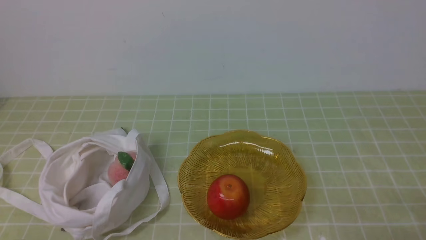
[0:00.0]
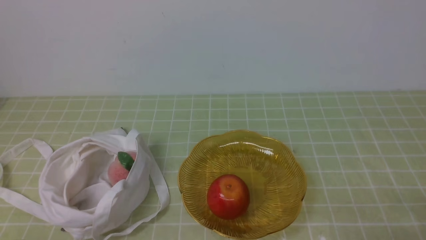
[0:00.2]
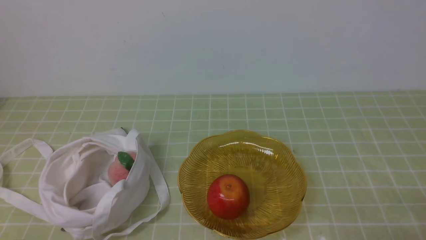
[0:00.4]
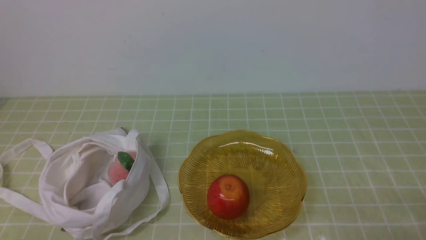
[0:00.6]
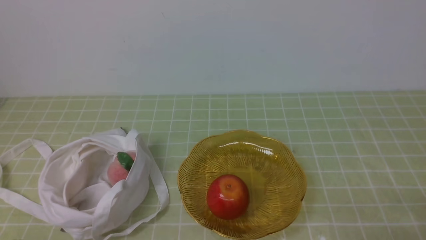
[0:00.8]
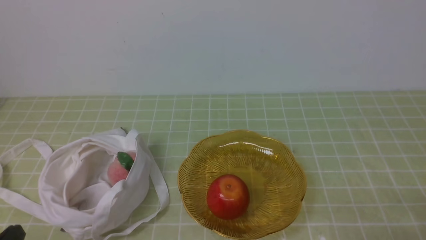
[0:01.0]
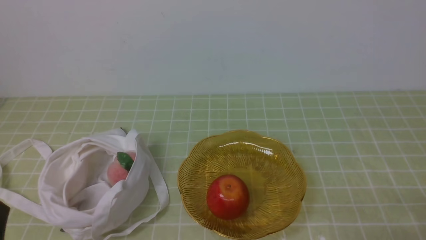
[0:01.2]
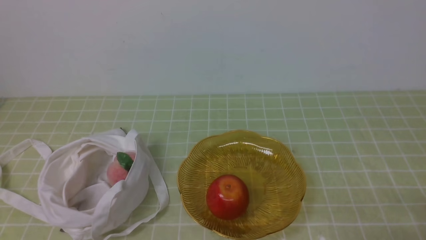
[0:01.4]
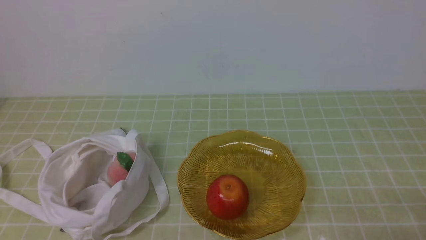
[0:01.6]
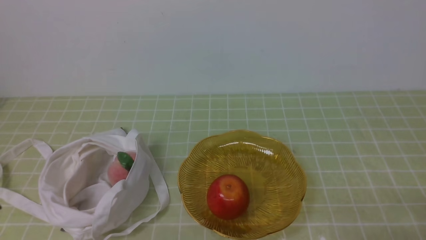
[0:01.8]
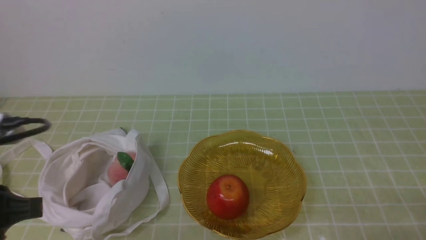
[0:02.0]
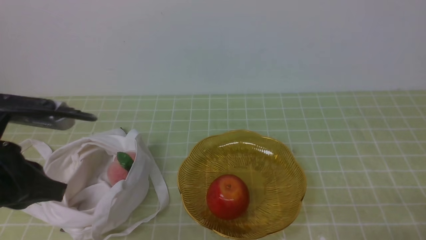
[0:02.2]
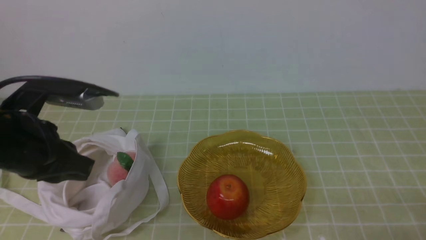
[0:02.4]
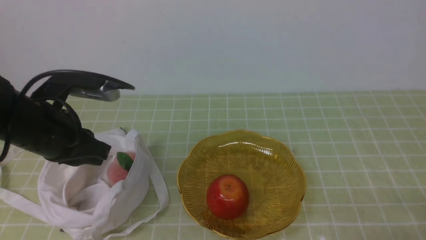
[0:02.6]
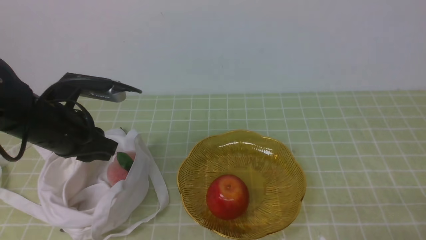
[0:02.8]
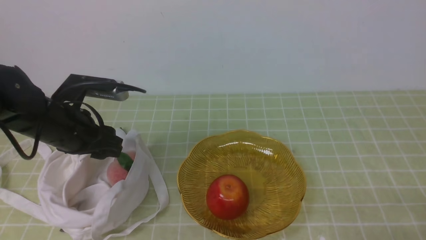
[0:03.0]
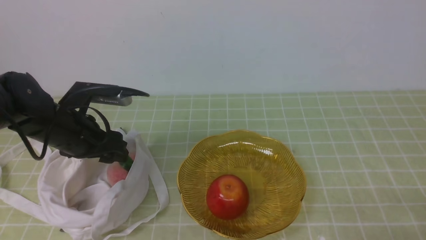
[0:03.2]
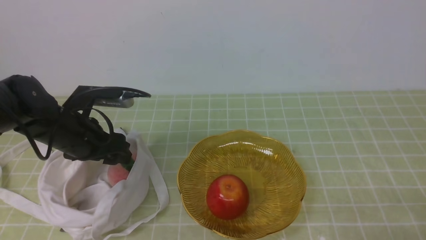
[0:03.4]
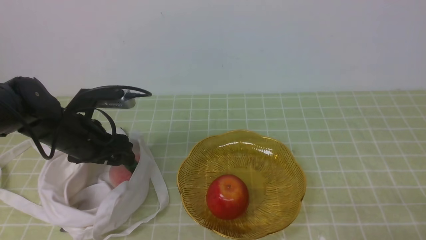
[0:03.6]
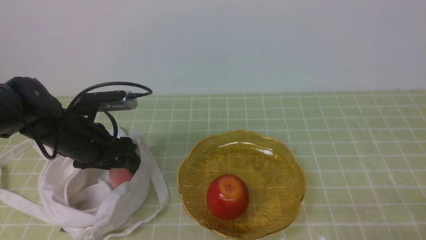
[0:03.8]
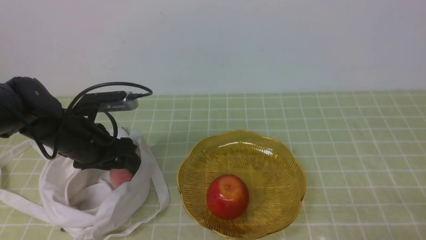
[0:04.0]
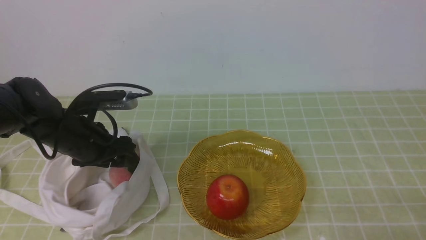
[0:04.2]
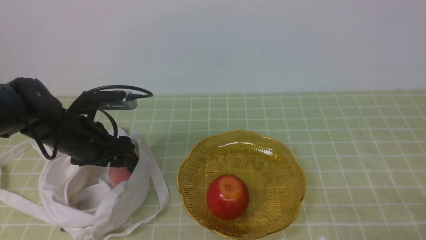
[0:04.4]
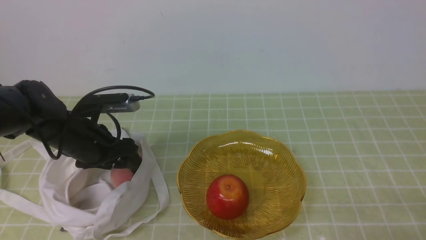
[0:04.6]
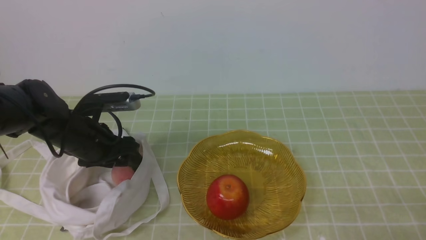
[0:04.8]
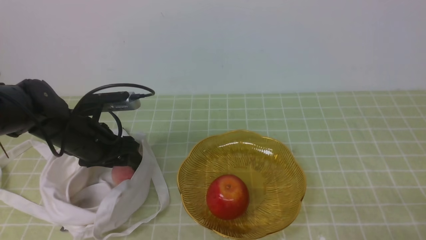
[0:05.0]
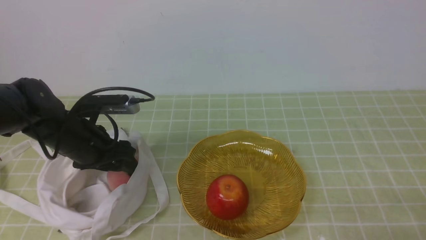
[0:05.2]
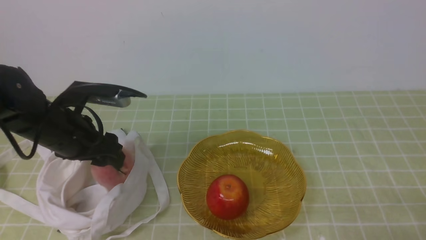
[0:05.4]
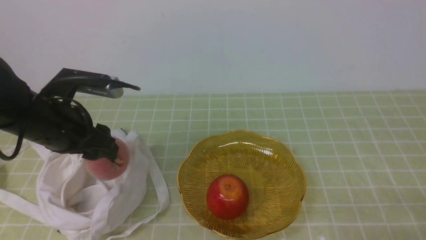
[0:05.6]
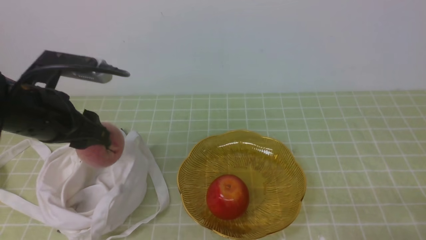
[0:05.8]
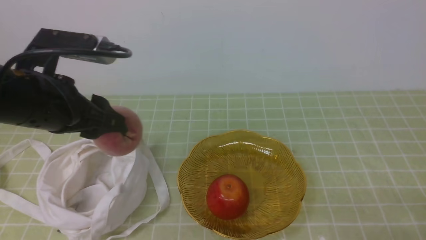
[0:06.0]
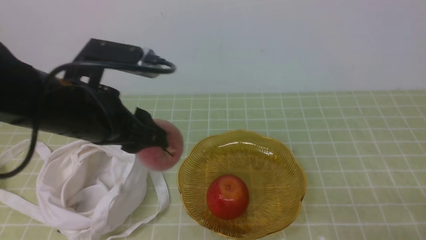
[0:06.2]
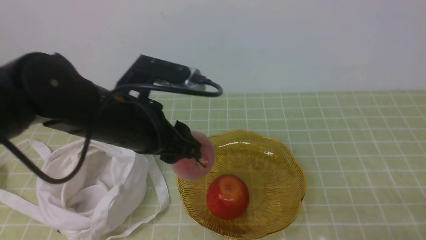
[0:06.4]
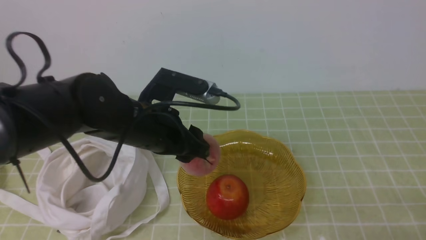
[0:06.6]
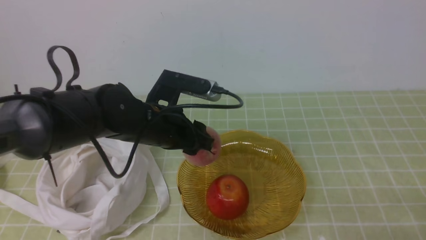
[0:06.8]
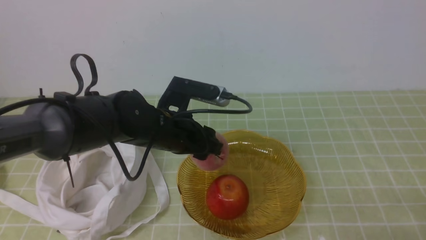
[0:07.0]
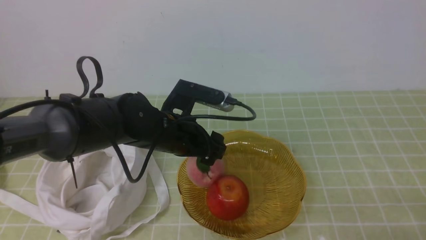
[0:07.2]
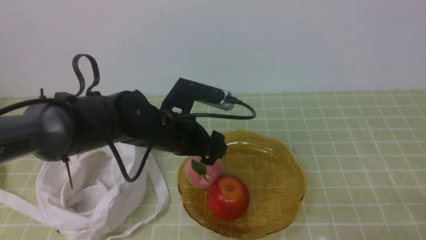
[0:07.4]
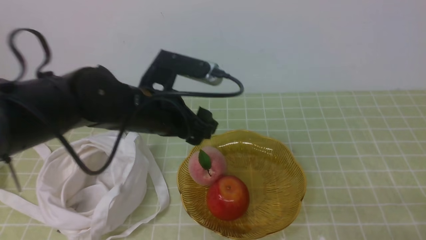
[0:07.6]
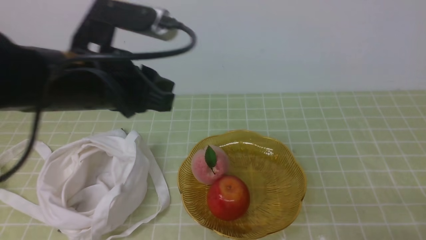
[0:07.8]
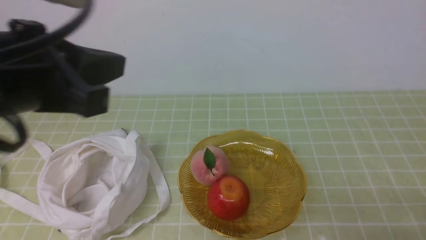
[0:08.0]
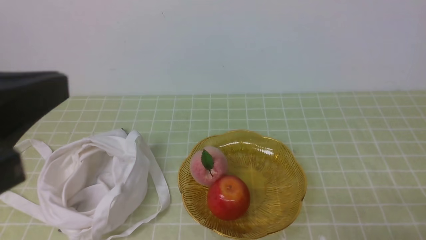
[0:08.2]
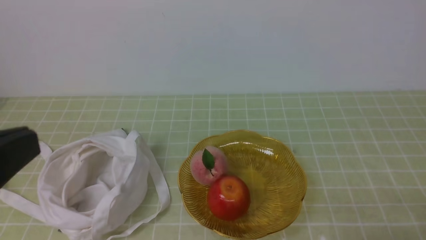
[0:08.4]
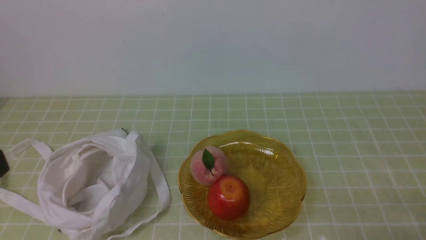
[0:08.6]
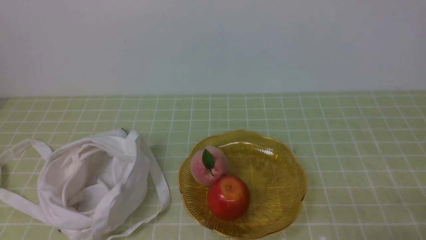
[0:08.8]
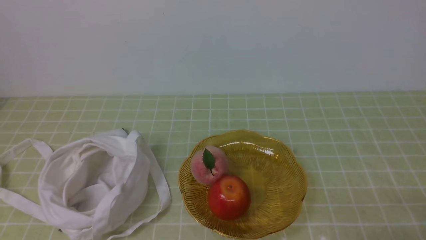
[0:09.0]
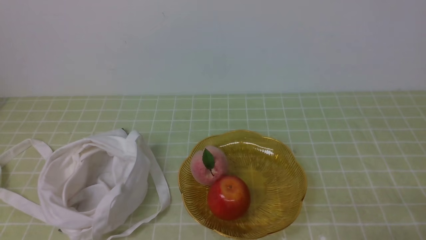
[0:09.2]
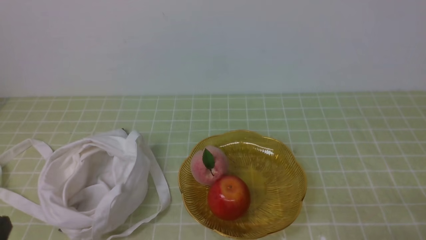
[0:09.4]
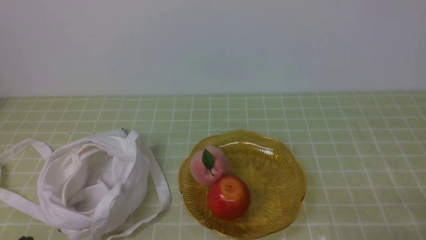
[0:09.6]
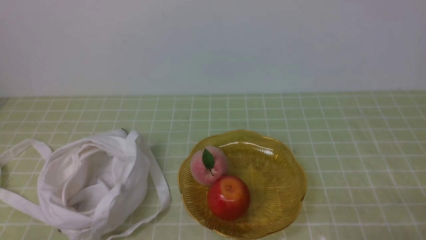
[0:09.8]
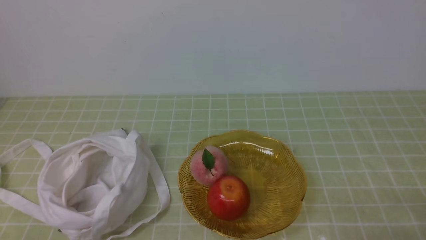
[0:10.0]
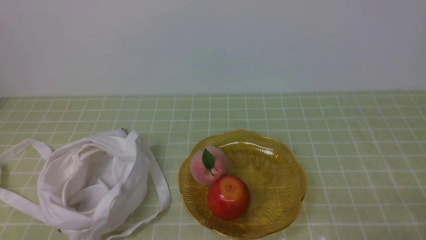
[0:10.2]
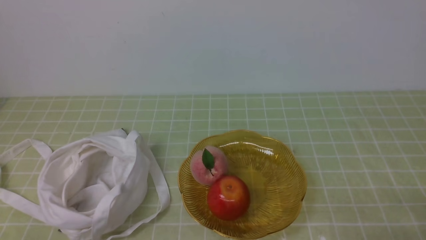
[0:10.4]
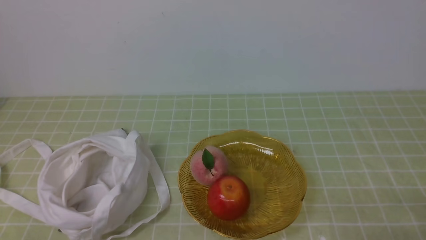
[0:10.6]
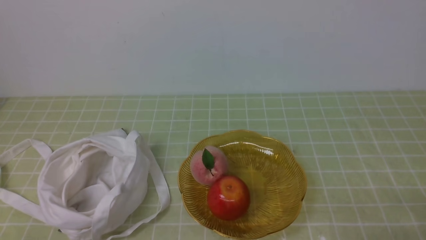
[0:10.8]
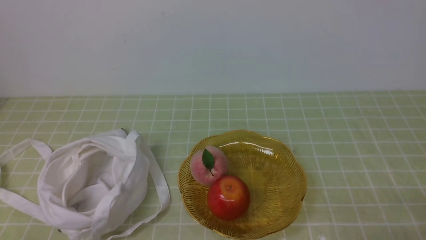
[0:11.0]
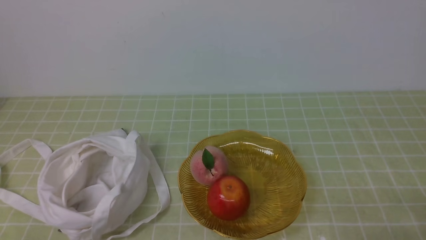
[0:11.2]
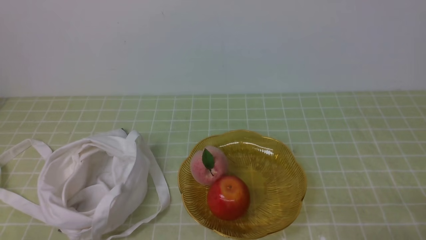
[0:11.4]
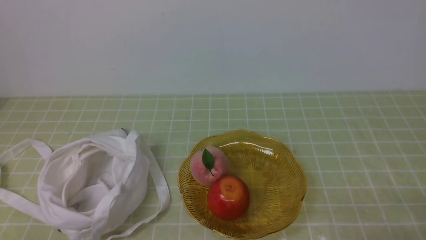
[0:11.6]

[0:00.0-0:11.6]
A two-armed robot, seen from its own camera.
Step, 0:00.0 to 0:05.2: use the left arm to grab a peach from the bag.
Step, 0:05.6 to 0:07.2: use the left arm to put the peach into the empty plate on the right.
0:01.4 to 0:02.8: The left gripper is displaced forward by approximately 25 cm.
0:02.8 to 0:04.4: The left gripper shifts roughly 5 cm downward, and opens.
0:04.4 to 0:05.8: The left gripper is displaced upward by roughly 10 cm.
0:05.8 to 0:07.2: The left gripper goes some 15 cm to the right and downward.
0:07.2 to 0:08.8: The left gripper goes about 35 cm backward, upward and to the left, and closes.
0:10.2 to 0:11.6: The two grippers keep their place.

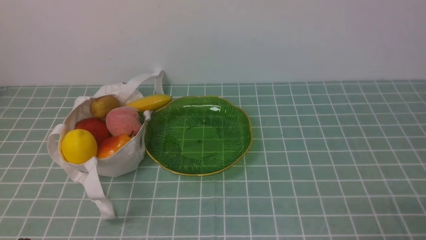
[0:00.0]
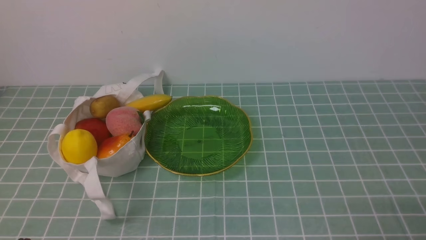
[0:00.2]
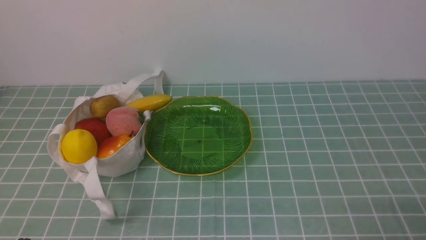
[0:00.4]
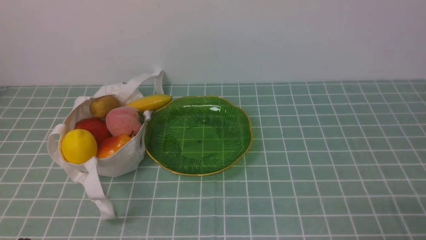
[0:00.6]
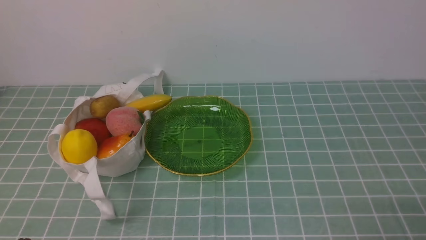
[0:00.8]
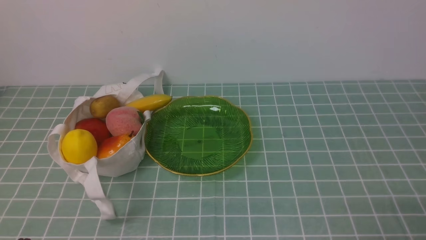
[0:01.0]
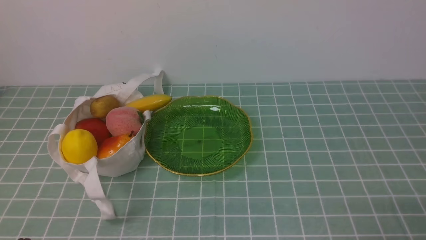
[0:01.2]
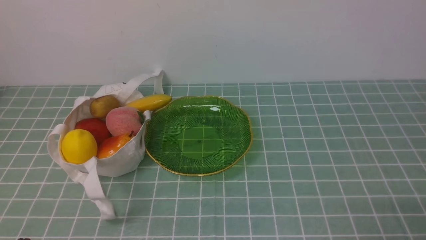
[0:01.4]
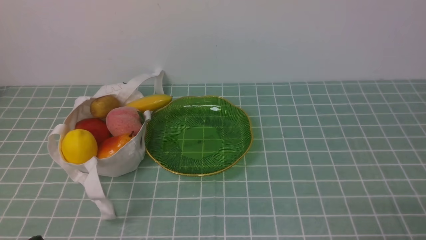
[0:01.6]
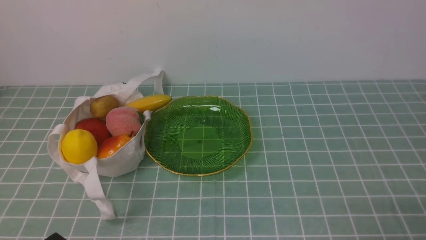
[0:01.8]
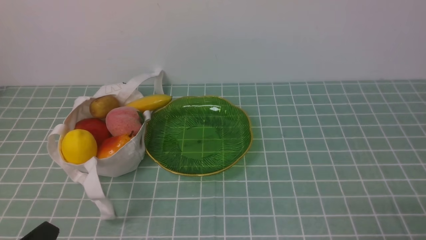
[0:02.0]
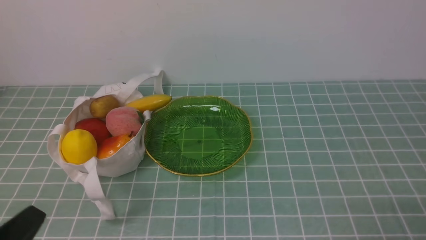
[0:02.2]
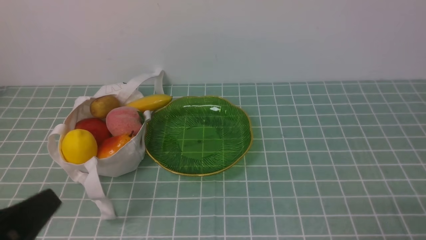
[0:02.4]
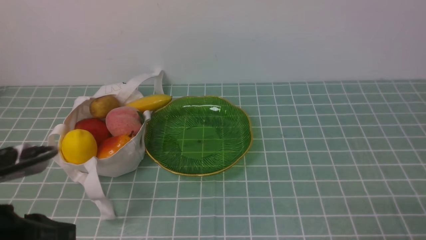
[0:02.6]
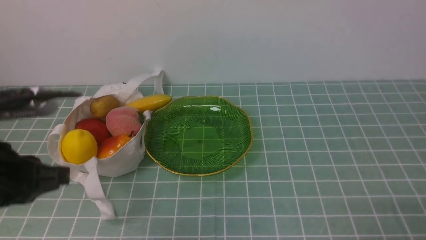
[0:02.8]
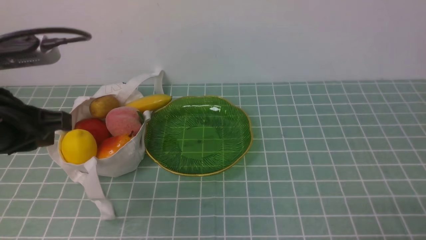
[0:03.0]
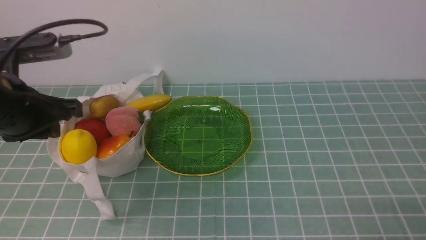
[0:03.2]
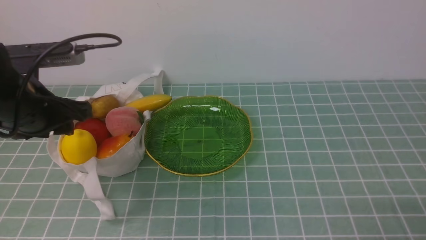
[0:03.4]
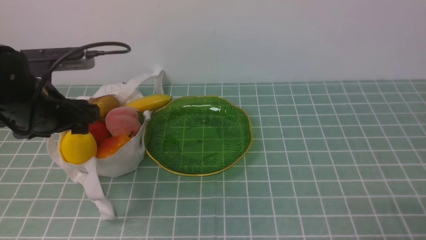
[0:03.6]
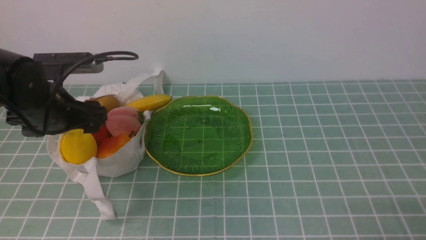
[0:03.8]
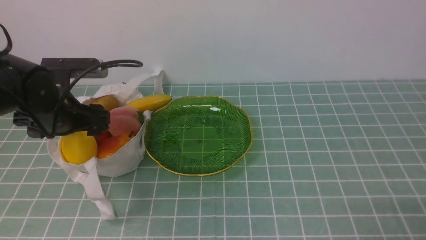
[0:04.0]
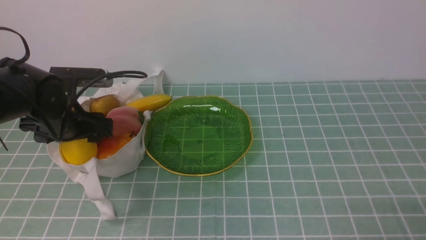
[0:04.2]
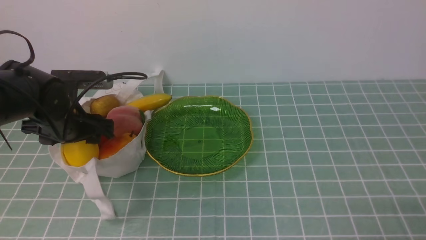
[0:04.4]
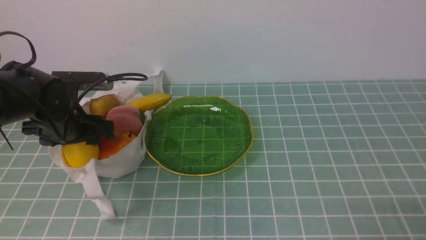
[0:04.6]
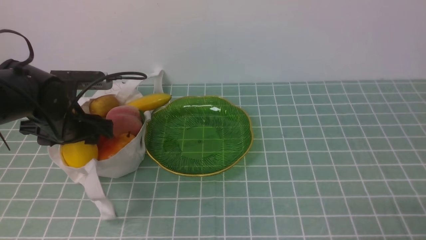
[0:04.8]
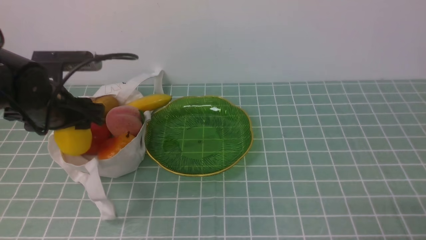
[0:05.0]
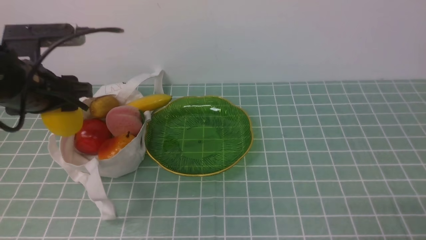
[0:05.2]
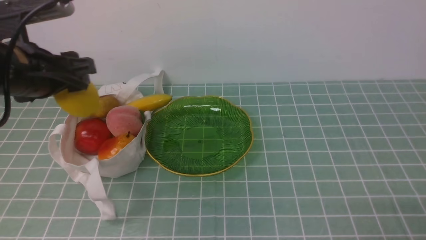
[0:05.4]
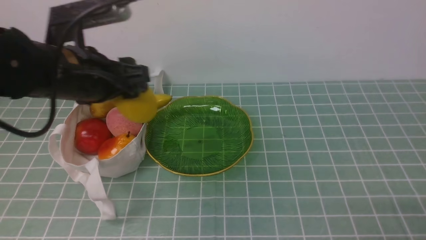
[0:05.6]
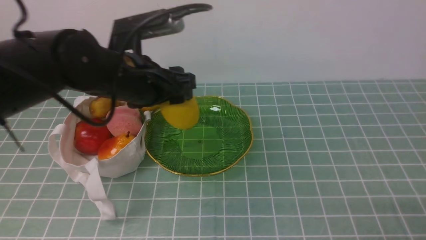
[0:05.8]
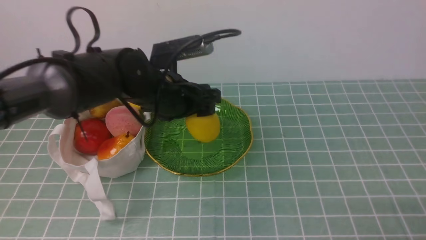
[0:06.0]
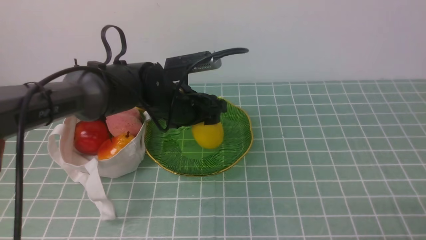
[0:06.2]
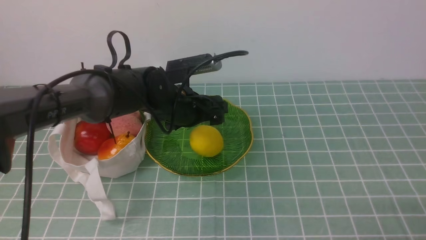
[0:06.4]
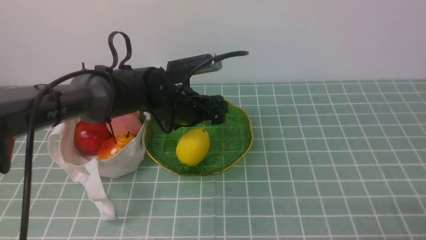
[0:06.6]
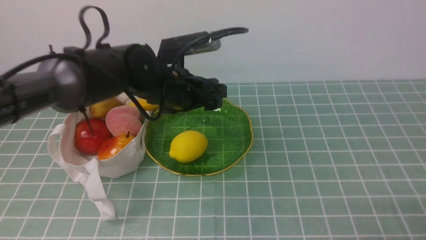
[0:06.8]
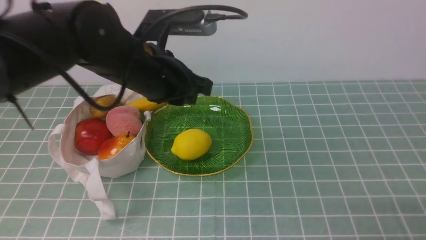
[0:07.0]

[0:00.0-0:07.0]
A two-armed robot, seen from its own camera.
Step, 0:00.0 to 0:04.8: use the left arm to grab a lemon from the bag.
Step, 0:05.0 to 0:06.2: use the left arm to put the lemon into the empty plate on the right.
0:01.4 to 0:02.8: The left gripper is displaced upward and forward by approximately 20 cm.
0:02.8 to 0:04.2: The left gripper is displaced forward and downward by about 20 cm, and opens.
0:04.2 to 0:05.6: The left gripper moves upward and to the right, roughly 10 cm.
0:05.6 to 0:07.0: The left gripper travels to the right by some 5 cm, moves some 10 cm downward and comes back, and closes its fingers.
